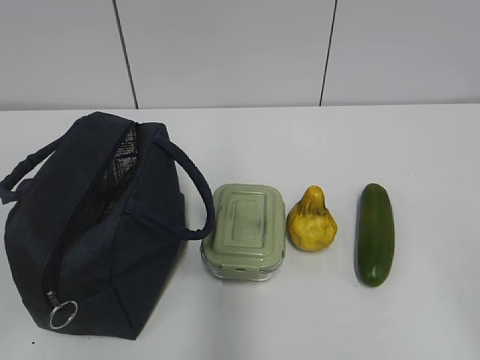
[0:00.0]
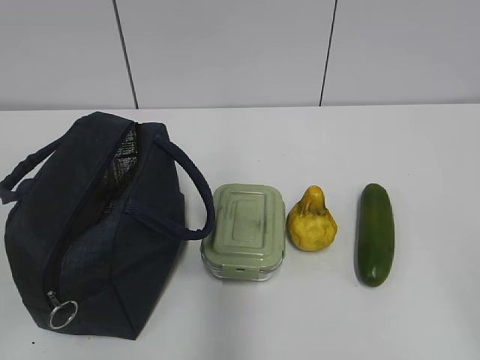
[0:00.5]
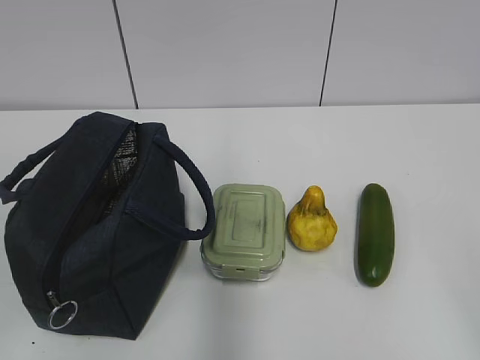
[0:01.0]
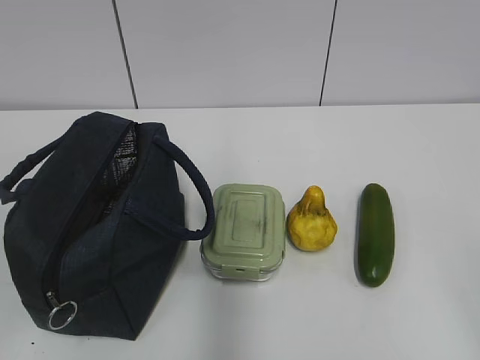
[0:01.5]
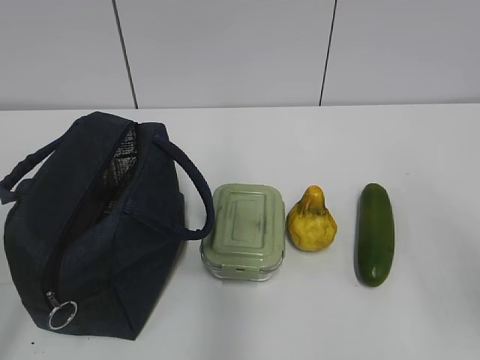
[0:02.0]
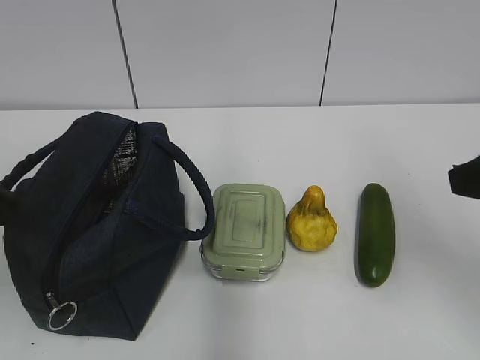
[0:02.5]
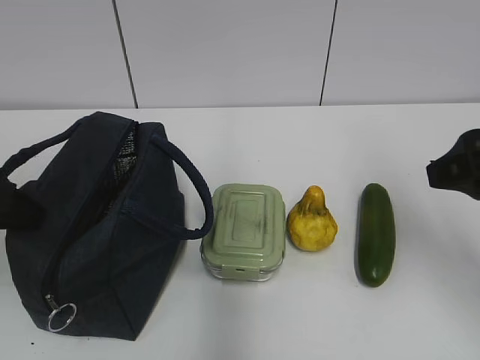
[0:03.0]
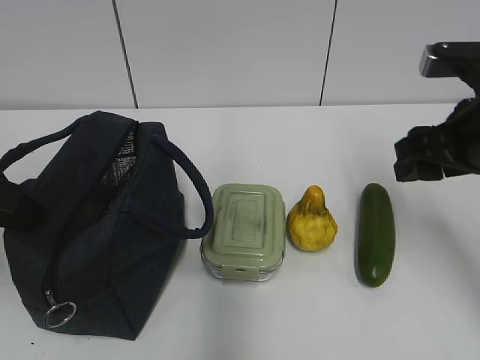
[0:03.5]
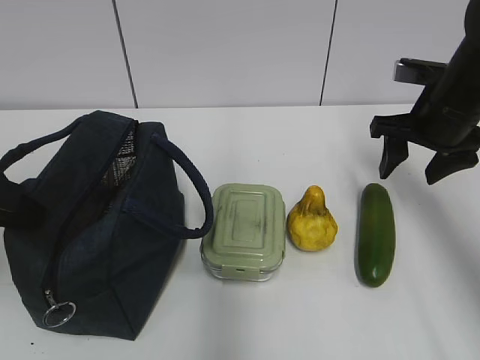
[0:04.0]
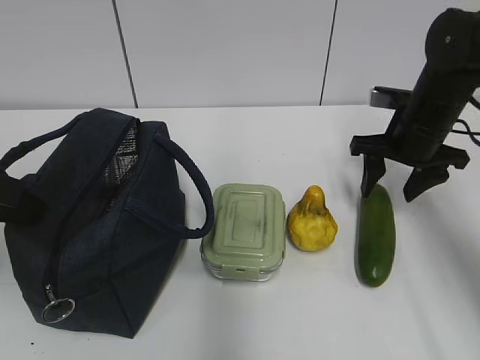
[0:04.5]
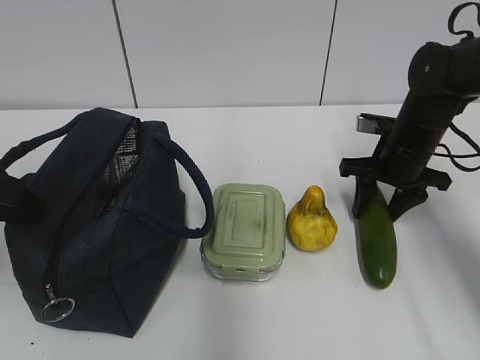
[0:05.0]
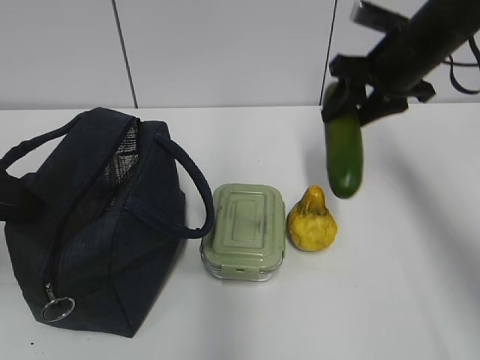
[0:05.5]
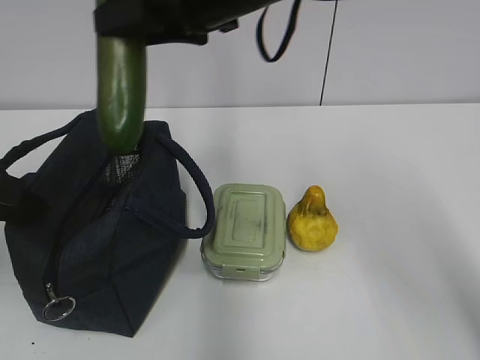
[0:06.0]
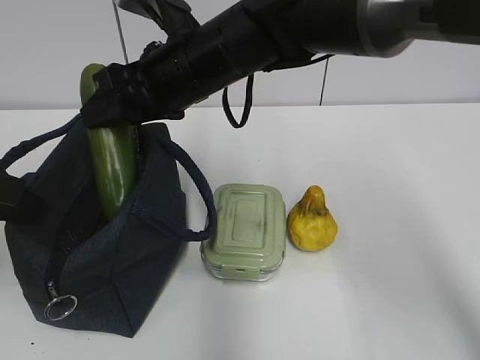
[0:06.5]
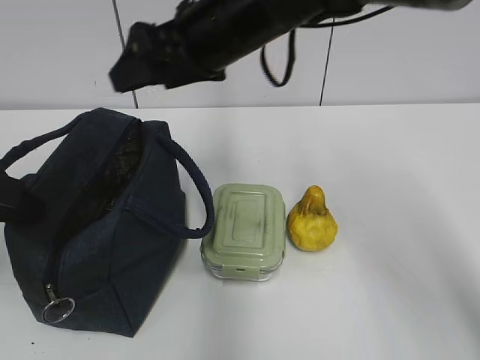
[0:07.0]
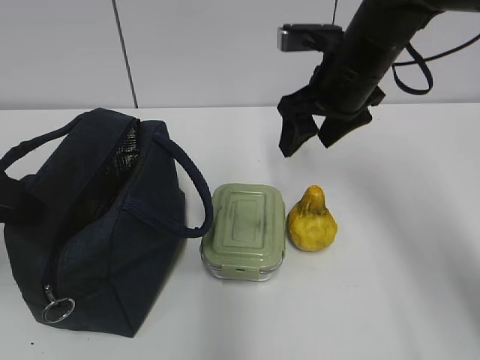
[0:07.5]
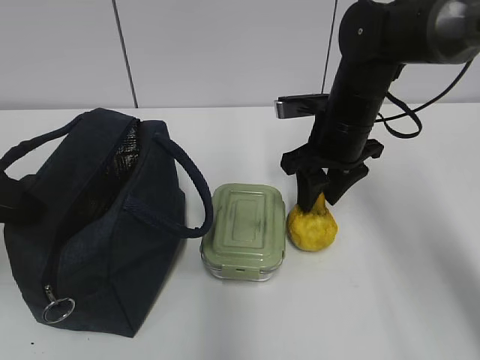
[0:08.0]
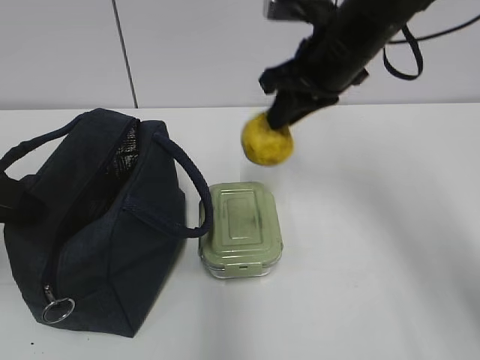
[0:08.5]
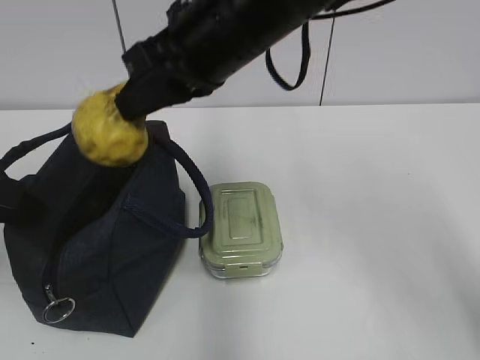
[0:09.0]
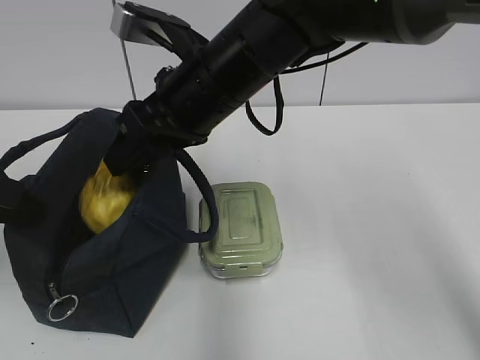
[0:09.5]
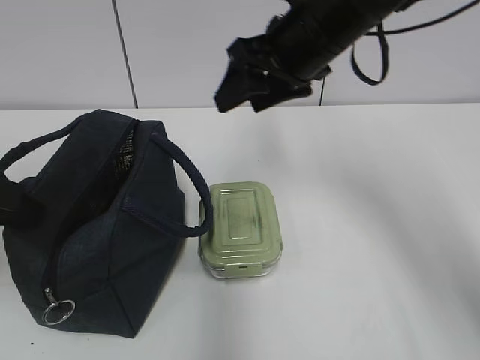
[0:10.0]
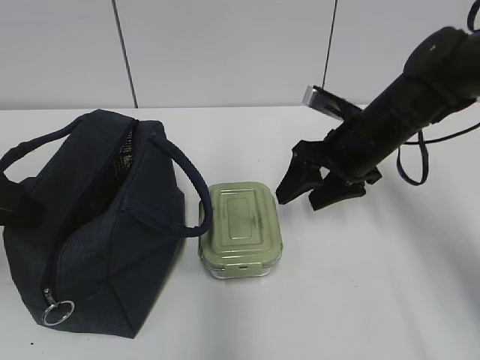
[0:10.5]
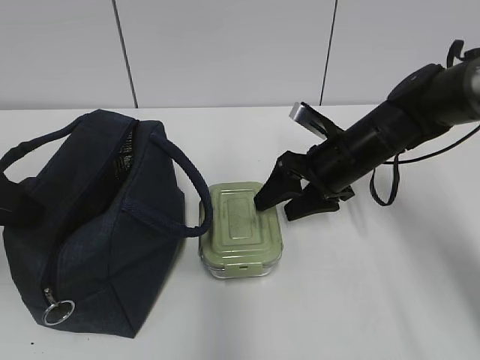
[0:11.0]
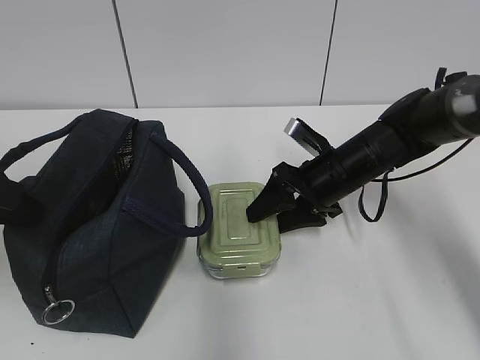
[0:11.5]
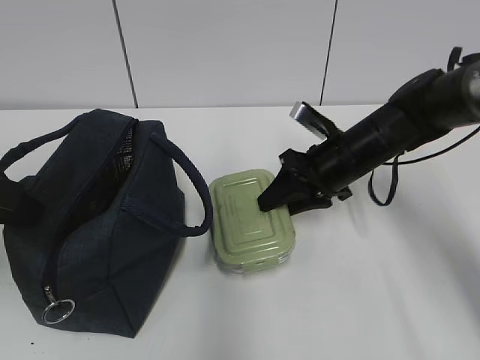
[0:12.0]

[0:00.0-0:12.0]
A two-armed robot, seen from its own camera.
0:02.0 to 0:04.0: The right gripper shifts roughly 30 cm forward; the left gripper moves forward, approximately 15 cm, and closes.
0:04.0 to 0:06.0: The right gripper is displaced to the left and upward by approximately 25 cm.
0:06.0 to 0:08.0: The right gripper travels downward and to the right by approximately 20 cm.
0:08.0 to 0:10.0: The right gripper heads upward, covering about 10 cm, reaches about 15 cm to the left, then returns, and closes, then reopens.
0:10.0 to 0:12.0: The right gripper travels downward and to the right by about 15 cm.

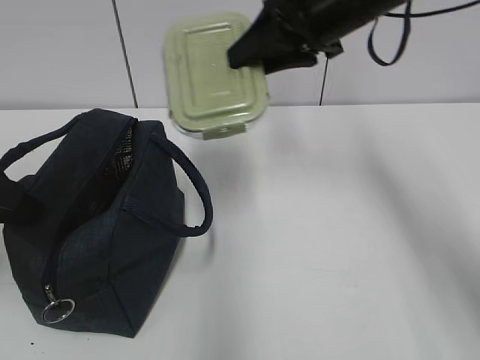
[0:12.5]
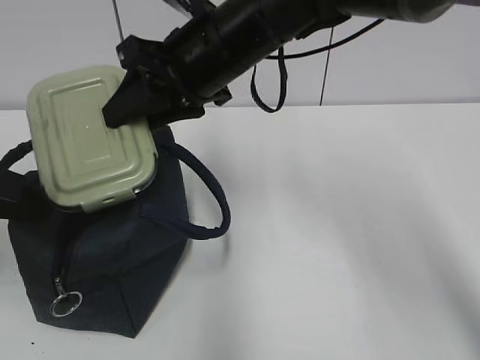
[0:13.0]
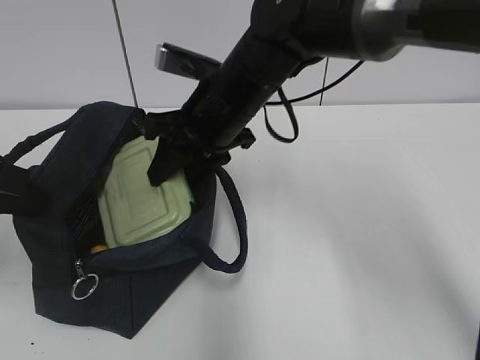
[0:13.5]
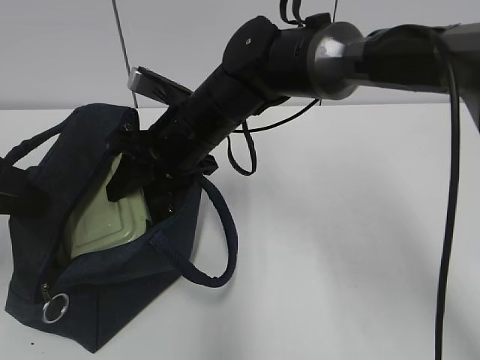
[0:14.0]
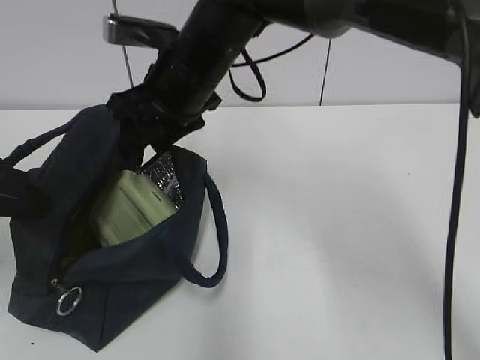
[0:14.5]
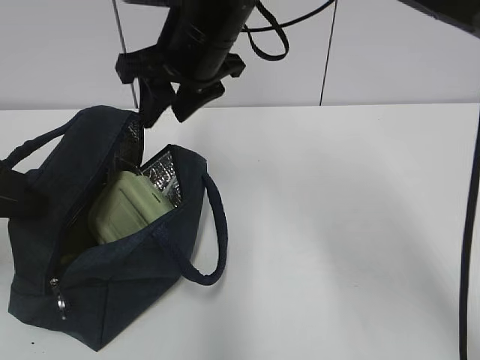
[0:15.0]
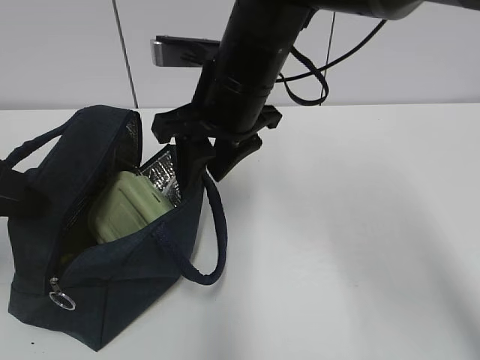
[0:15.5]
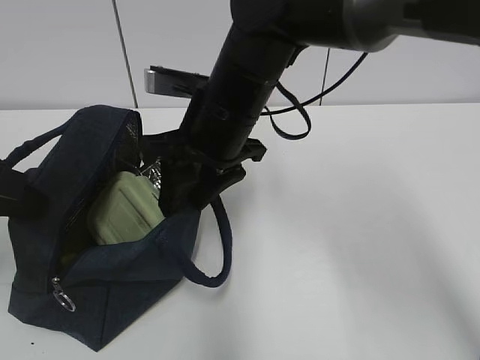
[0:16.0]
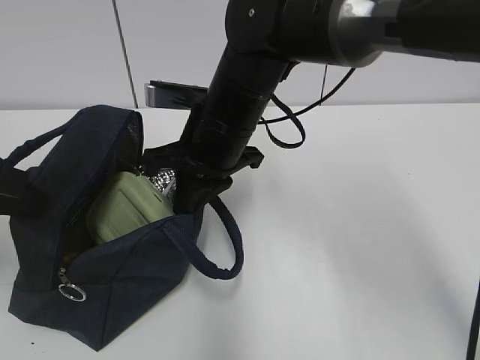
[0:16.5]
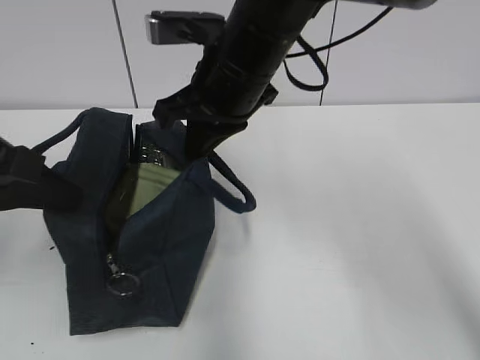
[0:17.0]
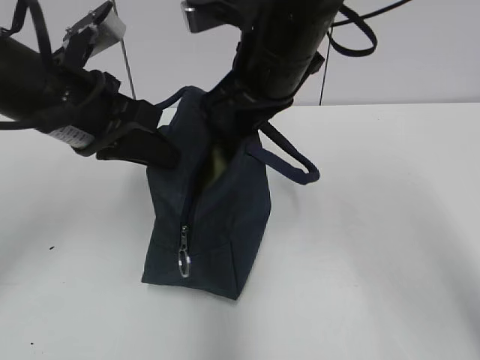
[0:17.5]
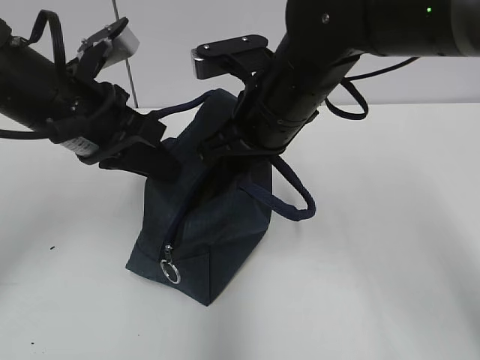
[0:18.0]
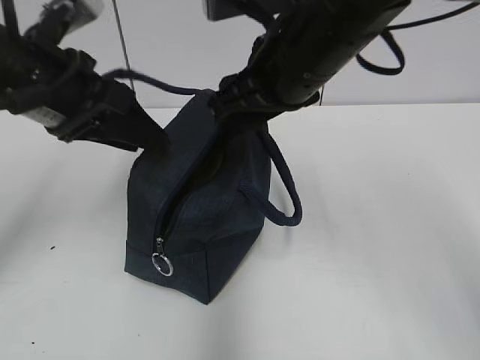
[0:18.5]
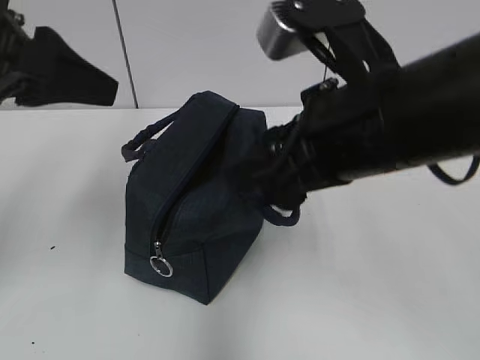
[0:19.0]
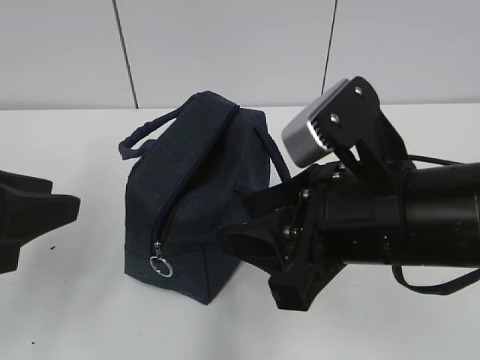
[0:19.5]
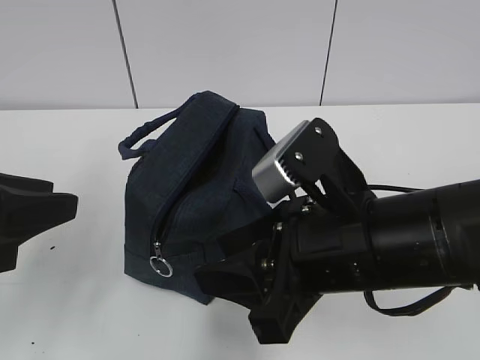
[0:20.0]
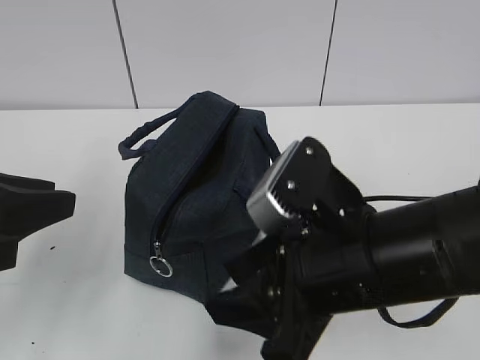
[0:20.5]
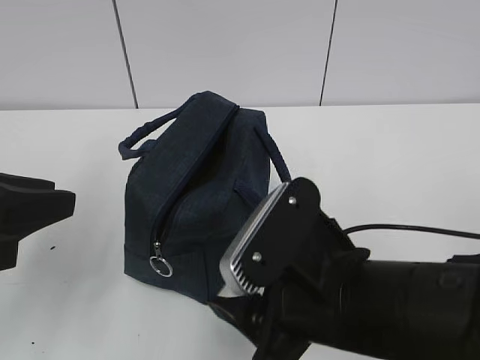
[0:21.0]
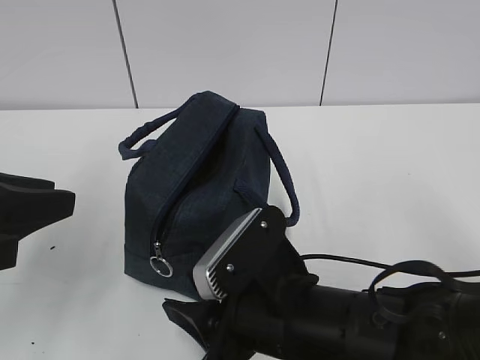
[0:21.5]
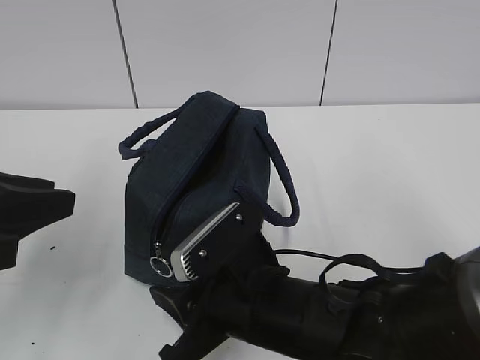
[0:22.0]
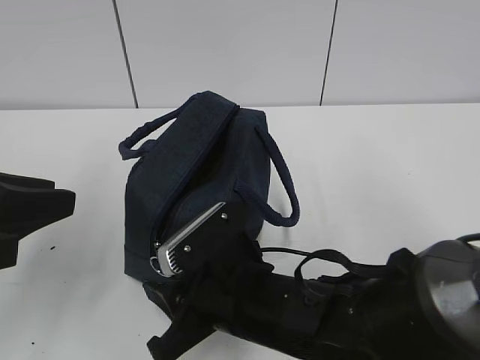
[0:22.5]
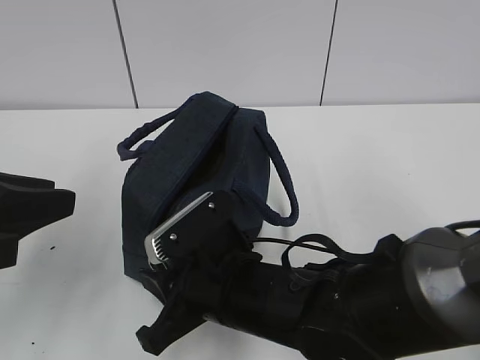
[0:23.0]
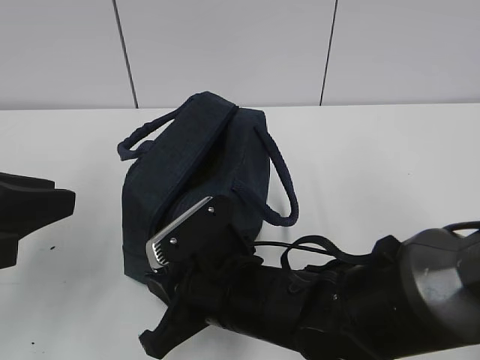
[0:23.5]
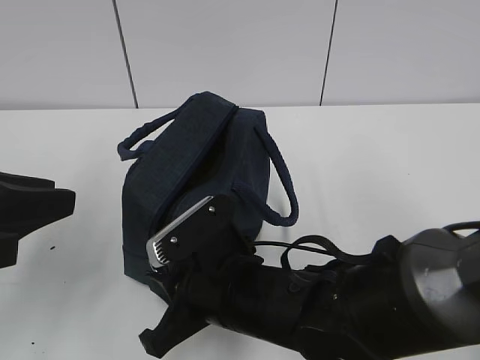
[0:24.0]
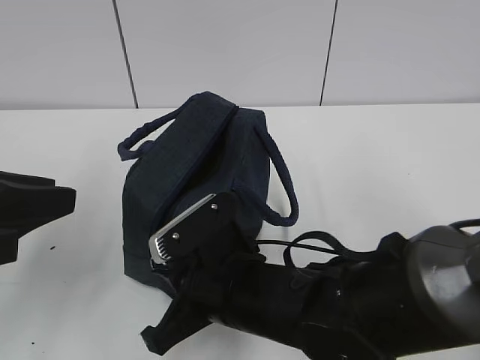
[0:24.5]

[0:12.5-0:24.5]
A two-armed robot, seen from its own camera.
0:12.5 to 0:14.5: The right gripper travels to the left by about 15 cm.
0:14.5 to 0:16.5: The right gripper moves roughly 5 cm, and closes its fingers.
0:16.5 to 0:18.5: The left gripper shifts about 10 cm to the right and forward, and opens its fingers. The right gripper swings up and down, some 10 cm each way, with 2 reversals, and opens.
0:18.5 to 0:20.5: The left gripper is displaced backward by roughly 15 cm; the right gripper heads backward and downward, covering approximately 15 cm.
0:20.5 to 0:22.5: The right gripper moves downward and to the left, some 10 cm.
0:22.5 to 0:24.5: The right gripper closes its fingers.

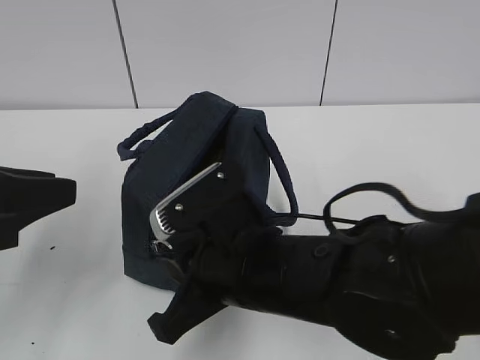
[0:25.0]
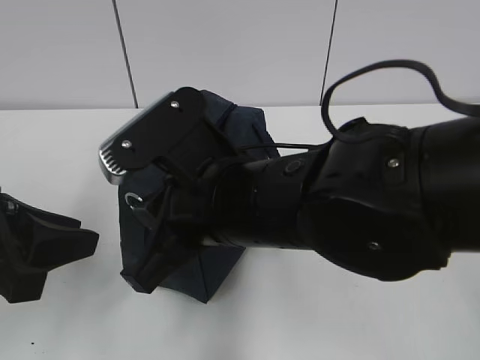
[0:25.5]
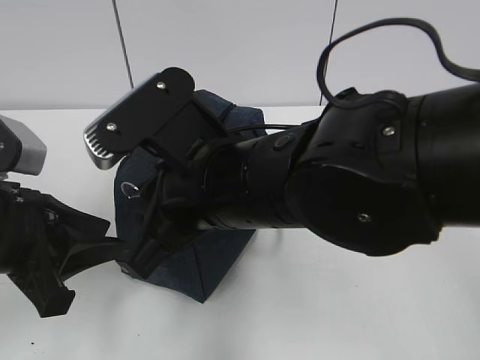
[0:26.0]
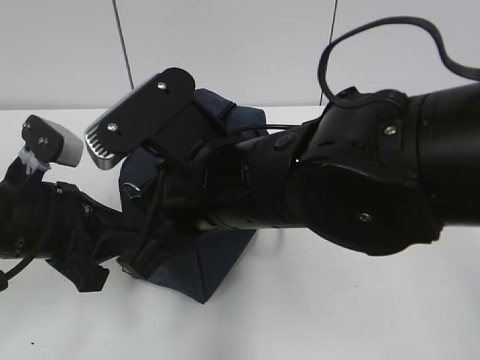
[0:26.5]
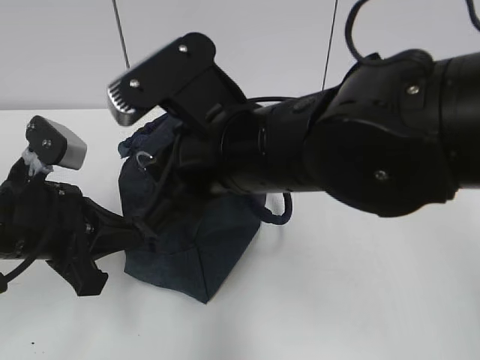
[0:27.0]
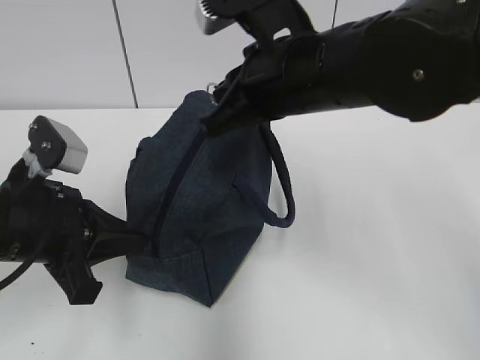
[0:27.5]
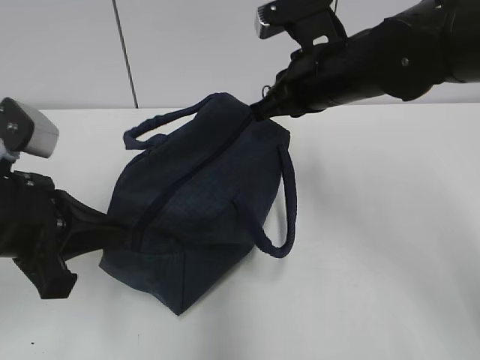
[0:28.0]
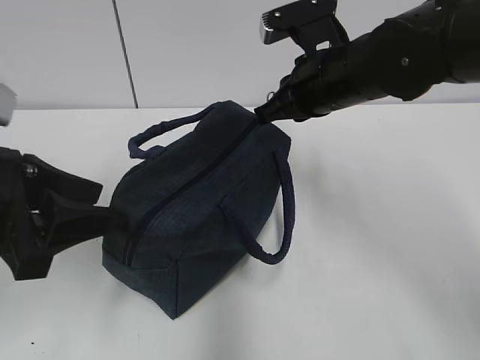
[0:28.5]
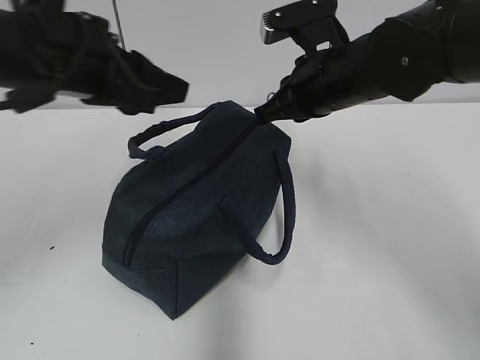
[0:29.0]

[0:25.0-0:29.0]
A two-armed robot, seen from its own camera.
0:25.0 to 0:27.0: The left gripper heads downward and forward, covering approximately 10 cm, and closes up. Meanwhile the right gripper is displaced upward by some 10 cm.
0:27.0 to 0:29.0: The left gripper heads upward and forward, covering roughly 15 cm, and opens up. The right gripper travels forward and to the right by about 15 cm.
